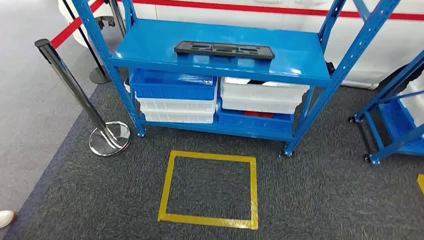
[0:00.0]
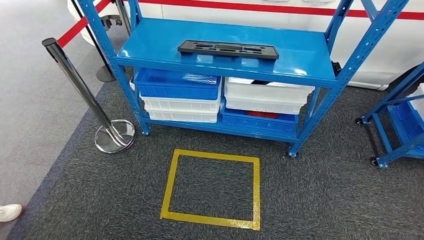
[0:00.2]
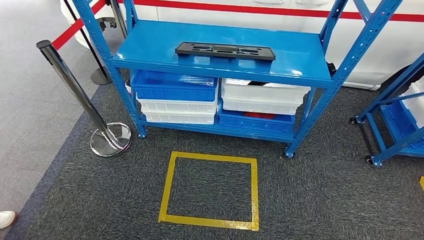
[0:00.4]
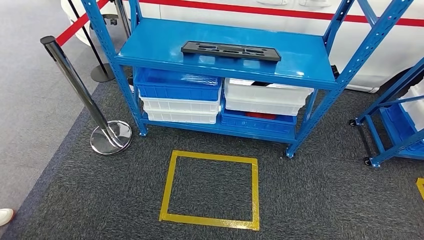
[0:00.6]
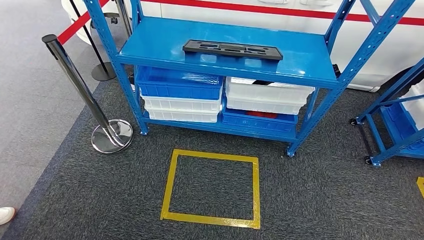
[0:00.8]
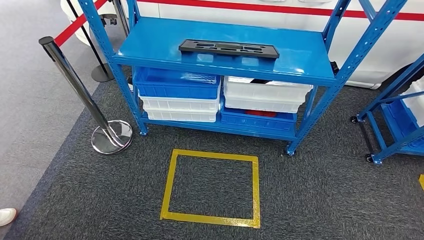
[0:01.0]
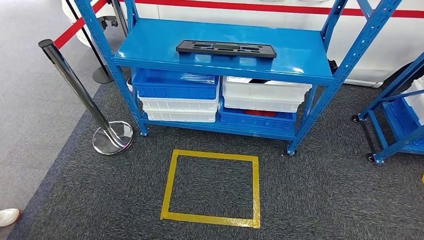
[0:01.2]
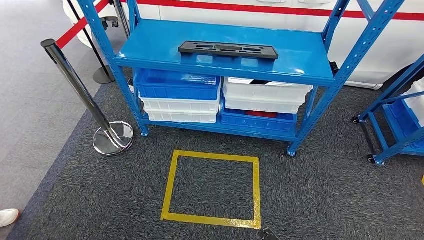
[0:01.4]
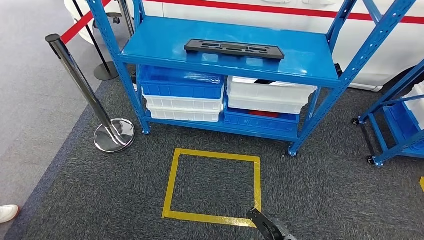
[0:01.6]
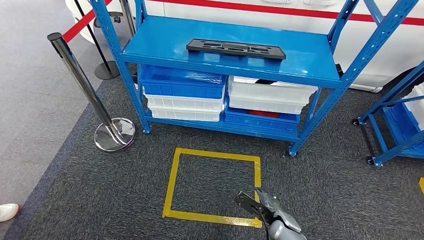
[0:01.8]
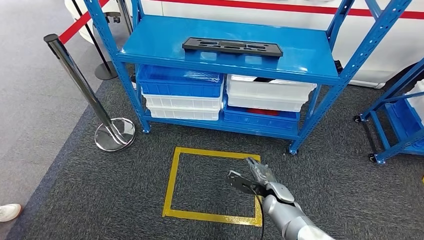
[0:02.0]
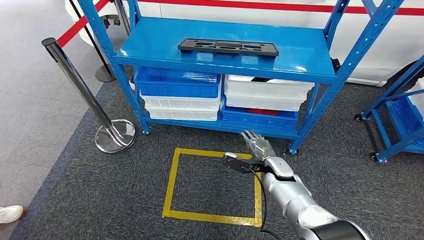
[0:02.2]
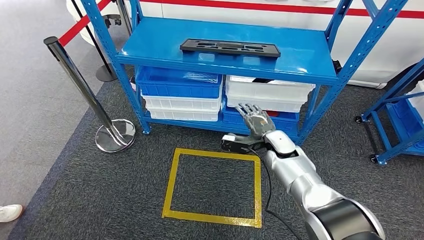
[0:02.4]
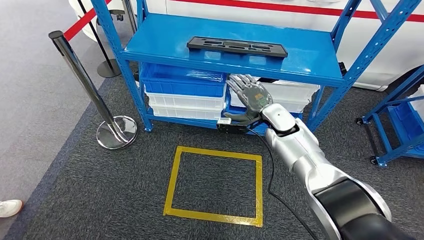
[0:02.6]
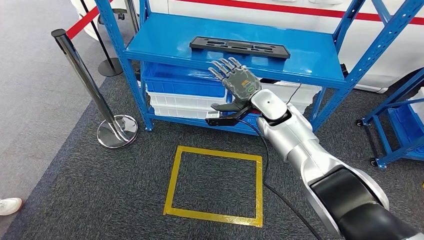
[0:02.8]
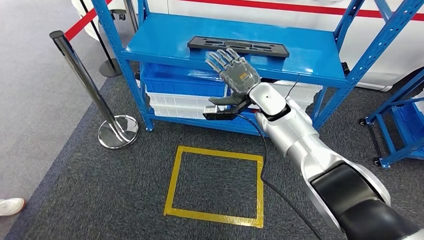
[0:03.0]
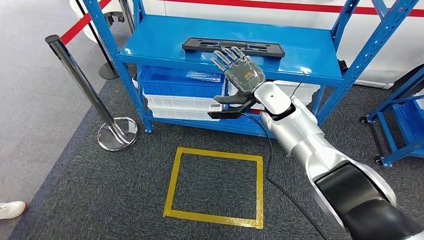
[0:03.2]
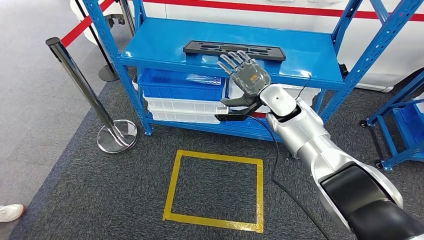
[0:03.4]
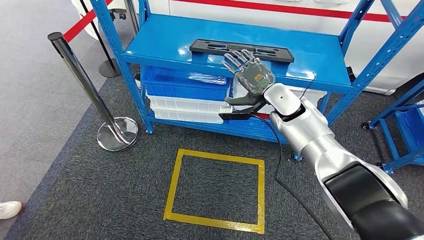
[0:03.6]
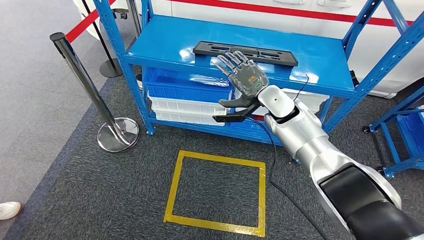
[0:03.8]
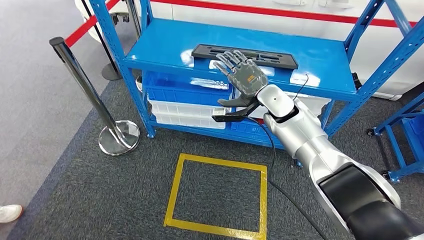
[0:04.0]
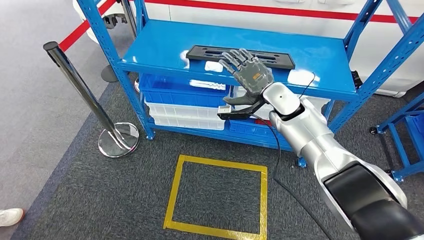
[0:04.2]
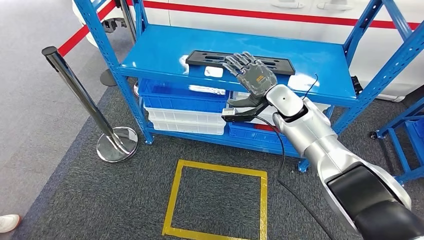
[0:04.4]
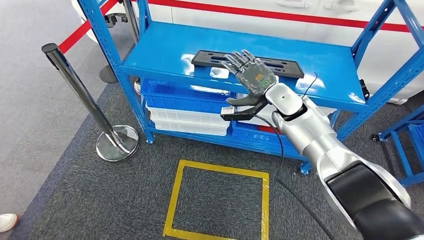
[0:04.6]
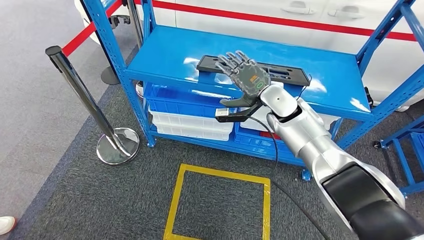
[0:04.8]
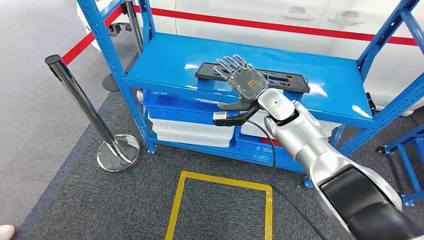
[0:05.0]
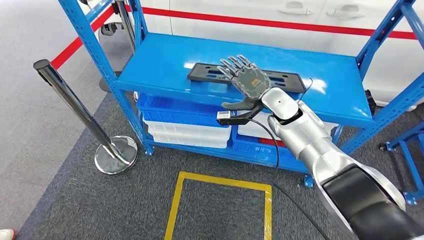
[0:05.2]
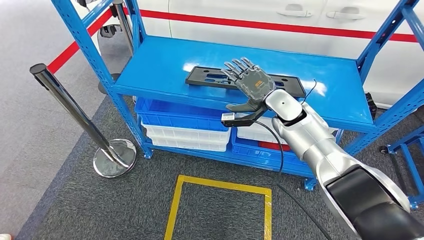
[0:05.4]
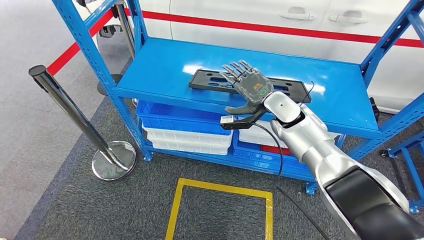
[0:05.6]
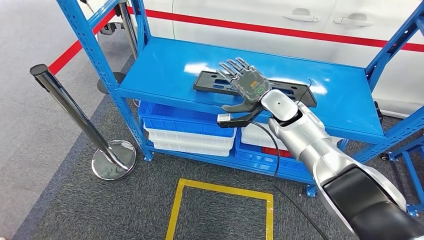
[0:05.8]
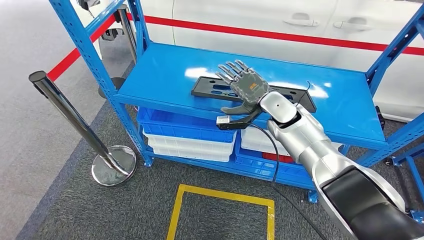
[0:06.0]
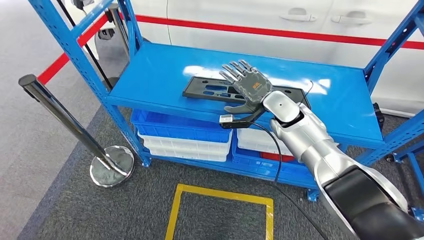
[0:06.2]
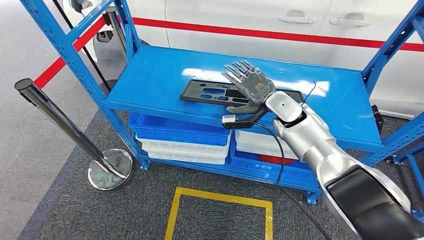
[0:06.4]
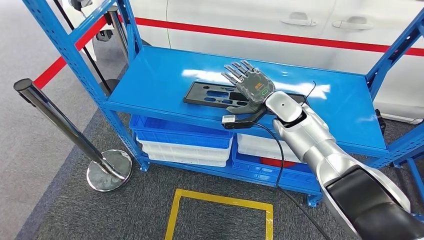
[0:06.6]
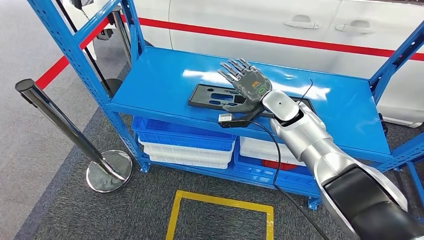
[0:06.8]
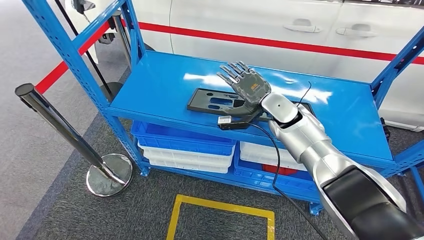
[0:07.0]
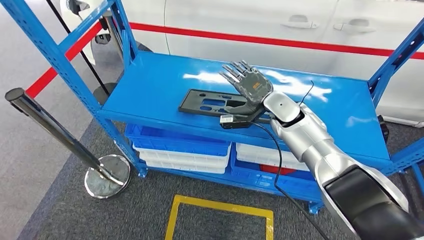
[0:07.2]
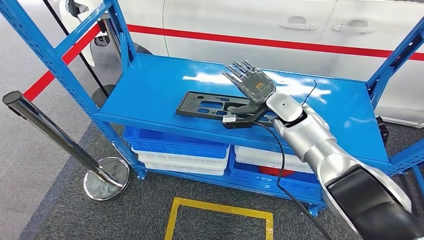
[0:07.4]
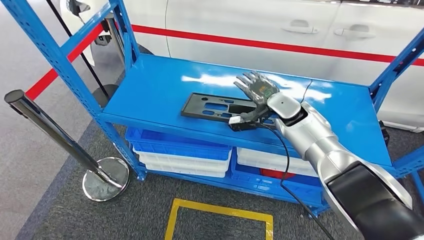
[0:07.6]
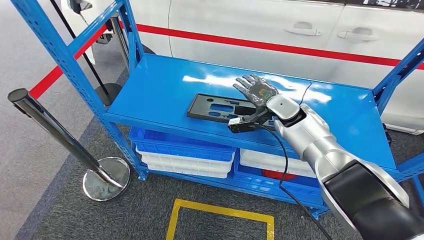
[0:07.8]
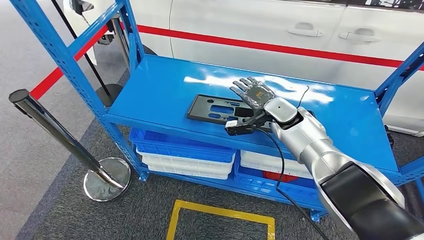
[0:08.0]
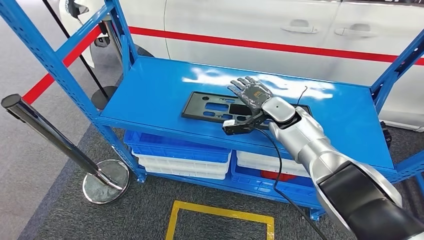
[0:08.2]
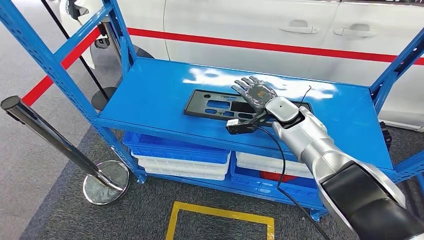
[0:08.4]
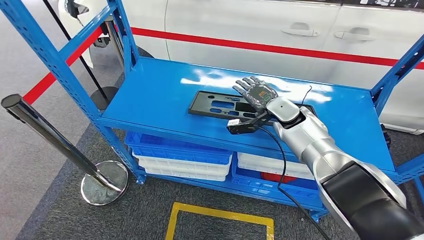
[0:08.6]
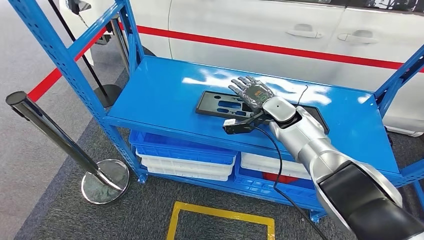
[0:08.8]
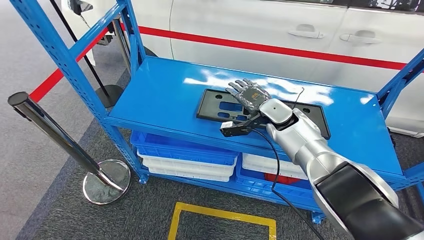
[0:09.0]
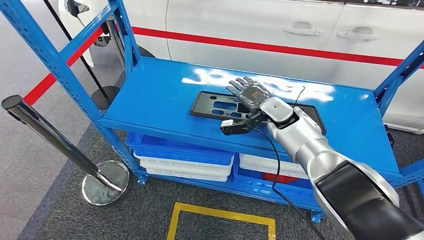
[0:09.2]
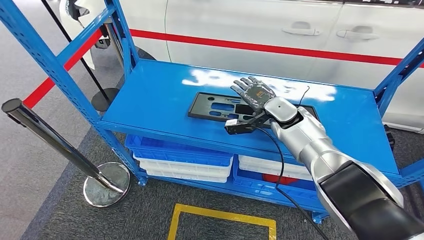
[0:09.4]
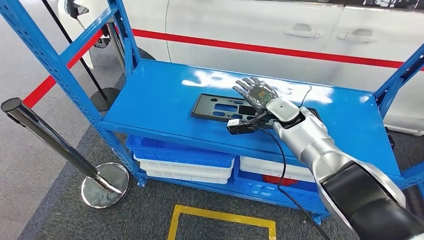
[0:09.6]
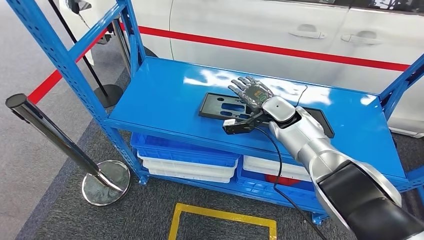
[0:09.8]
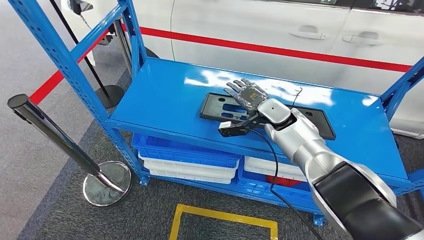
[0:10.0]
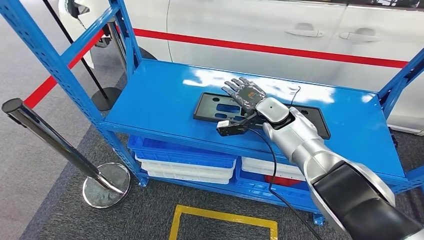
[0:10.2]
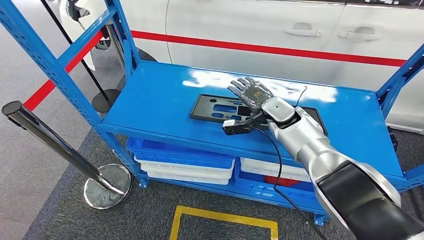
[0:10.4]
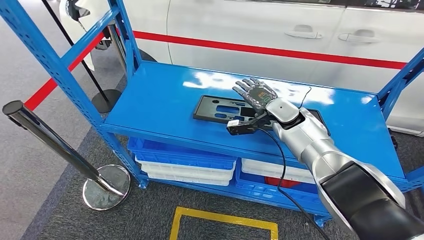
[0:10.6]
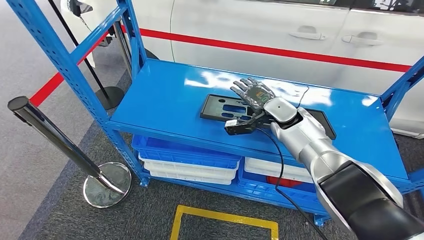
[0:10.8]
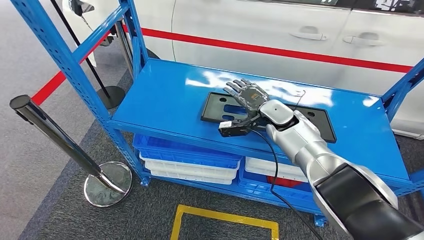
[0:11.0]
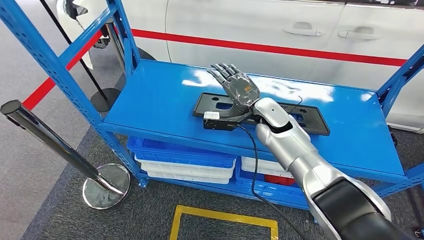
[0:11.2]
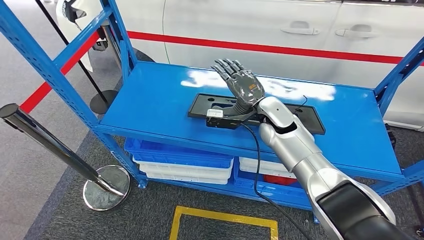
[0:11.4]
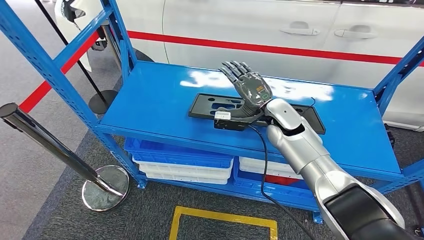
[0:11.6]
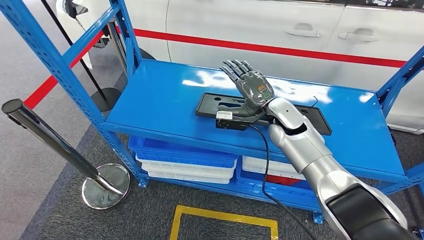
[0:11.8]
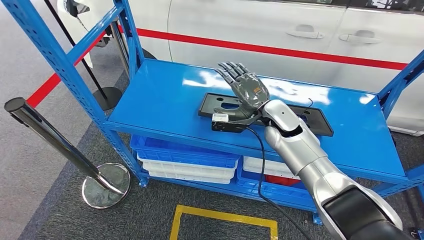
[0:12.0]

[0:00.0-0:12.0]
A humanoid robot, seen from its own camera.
Step, 0:00.0 to 0:09.0: Pick up the large material from the shelf.

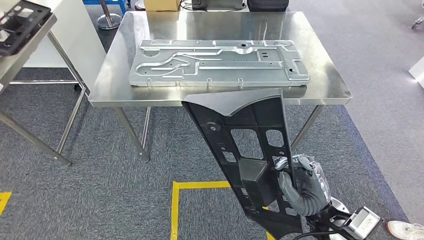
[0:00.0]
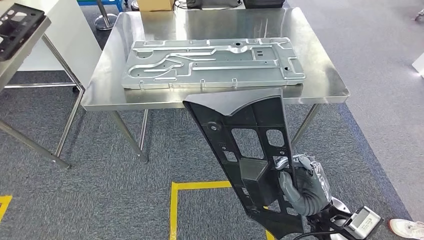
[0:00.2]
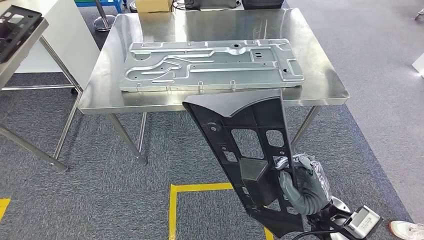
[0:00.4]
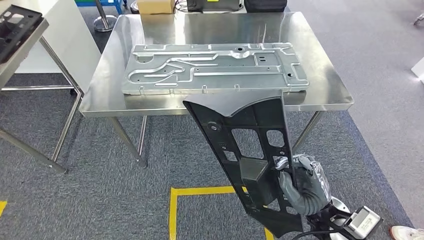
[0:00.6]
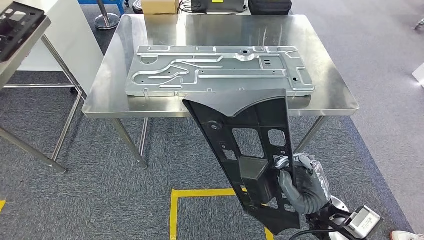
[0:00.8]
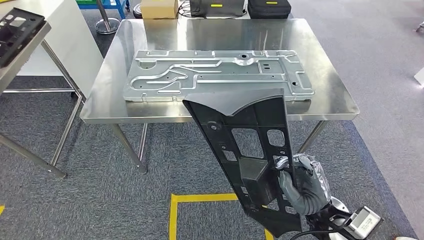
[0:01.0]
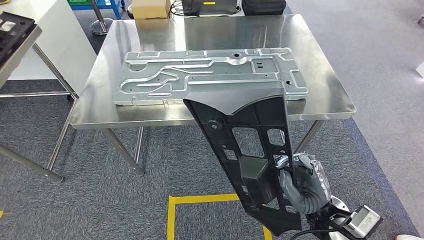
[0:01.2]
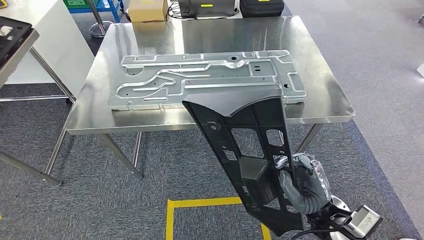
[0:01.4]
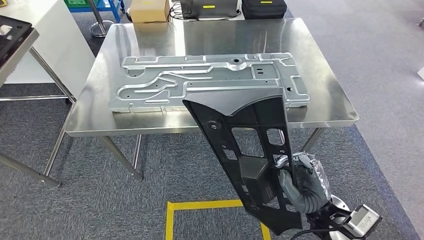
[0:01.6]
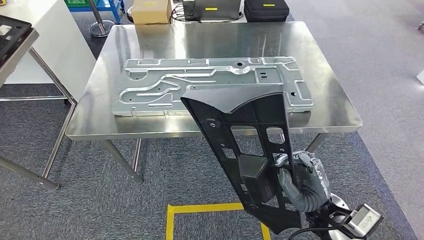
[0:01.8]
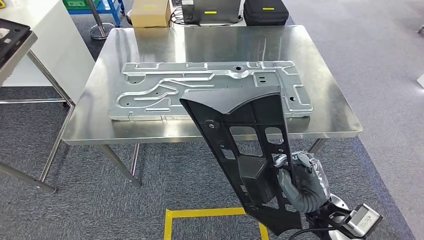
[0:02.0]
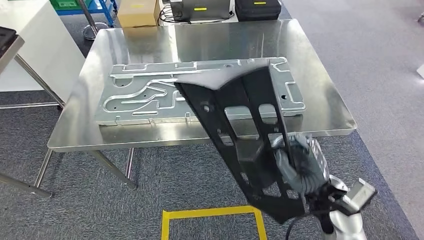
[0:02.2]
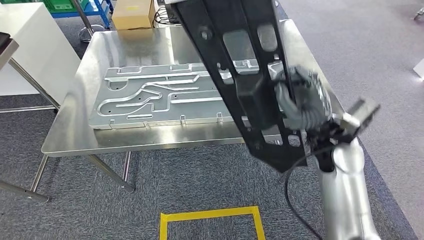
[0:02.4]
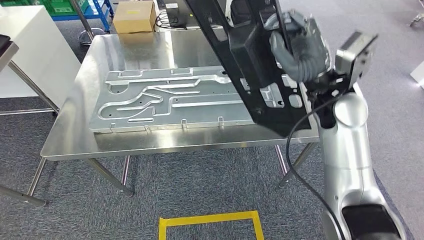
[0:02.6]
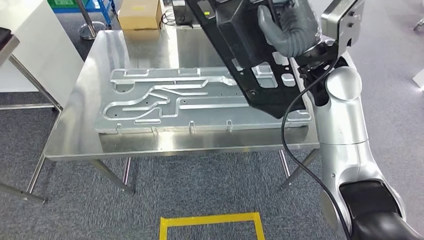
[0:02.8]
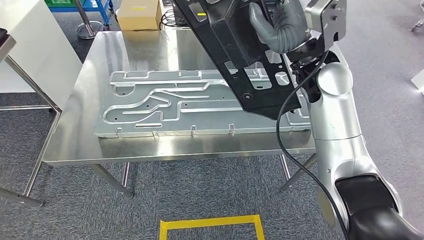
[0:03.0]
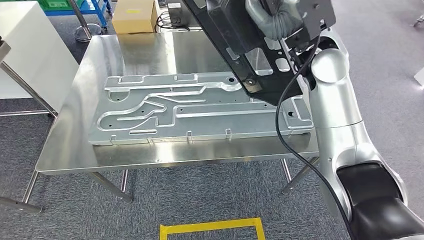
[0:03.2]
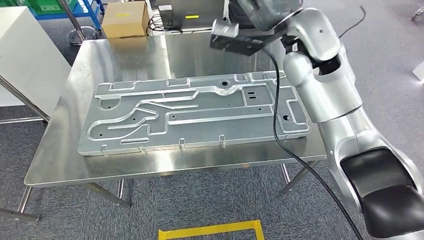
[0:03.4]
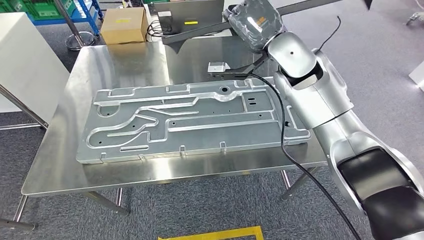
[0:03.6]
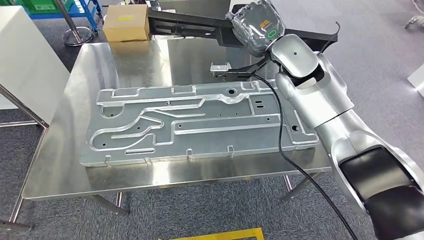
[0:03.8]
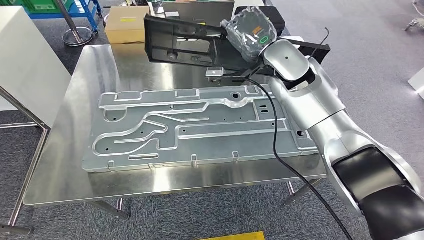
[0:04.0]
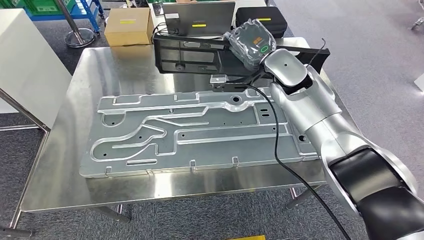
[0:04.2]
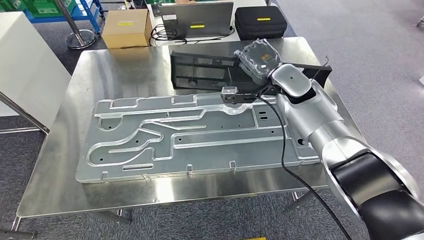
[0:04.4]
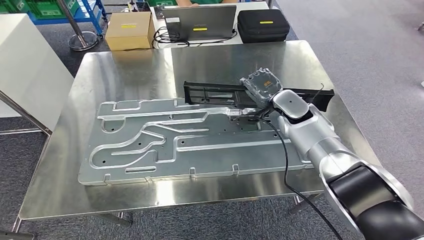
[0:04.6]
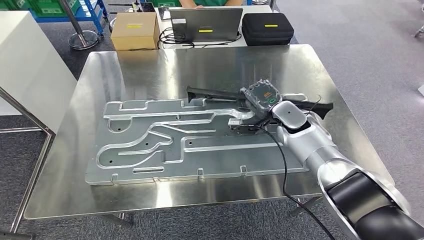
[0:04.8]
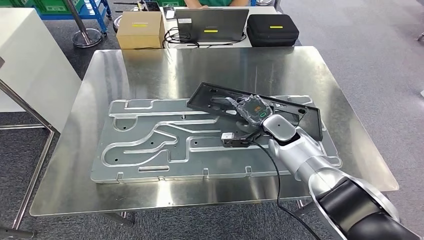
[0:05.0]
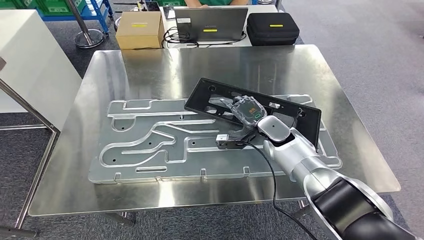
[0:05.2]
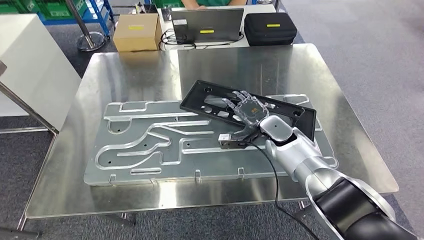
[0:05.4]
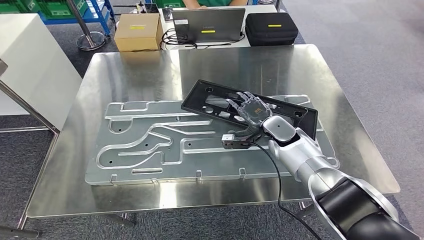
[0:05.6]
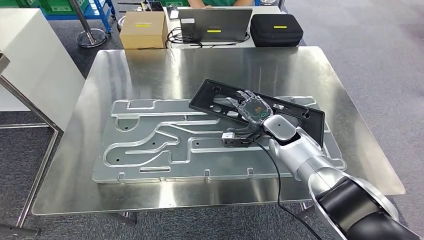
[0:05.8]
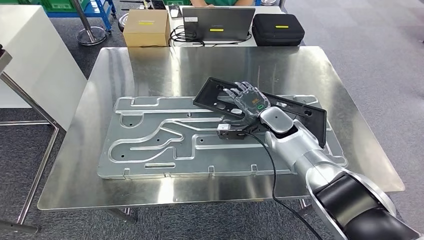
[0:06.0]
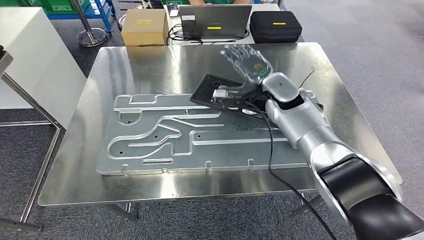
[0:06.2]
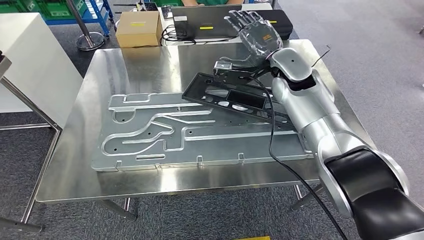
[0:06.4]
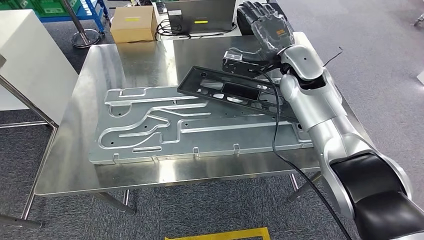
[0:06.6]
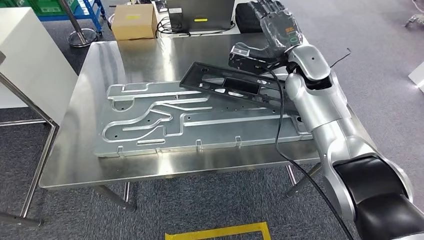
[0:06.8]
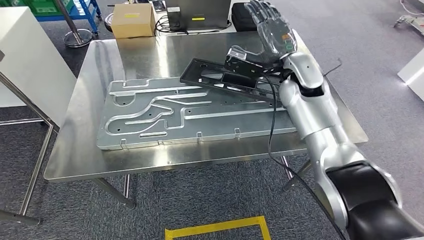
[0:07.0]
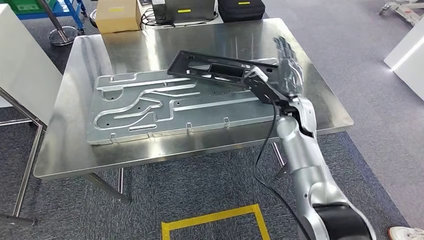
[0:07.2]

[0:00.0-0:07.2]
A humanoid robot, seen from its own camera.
Step, 0:03.6 to 0:05.6: Insert the large material into the corresponding slot on the workbench.
